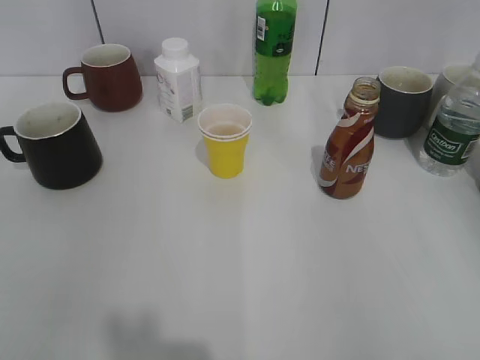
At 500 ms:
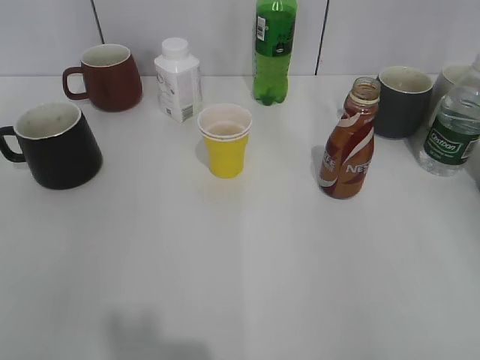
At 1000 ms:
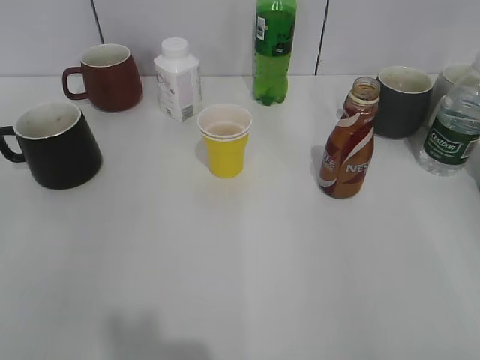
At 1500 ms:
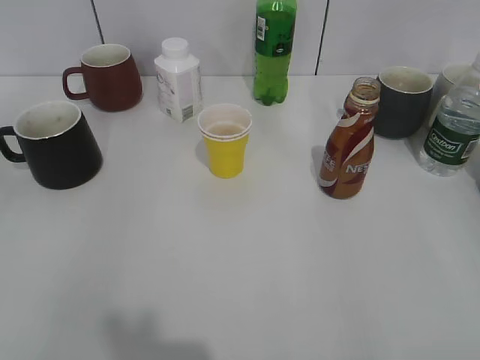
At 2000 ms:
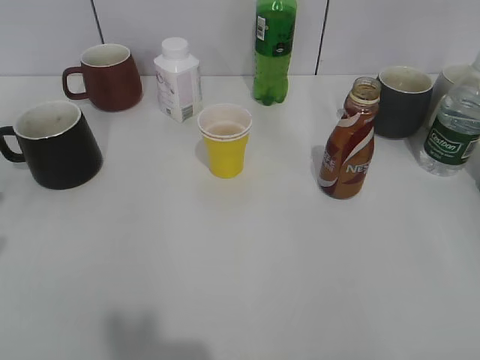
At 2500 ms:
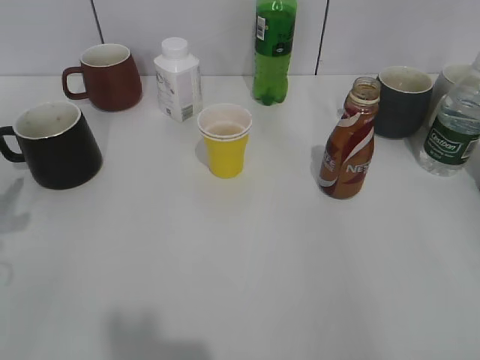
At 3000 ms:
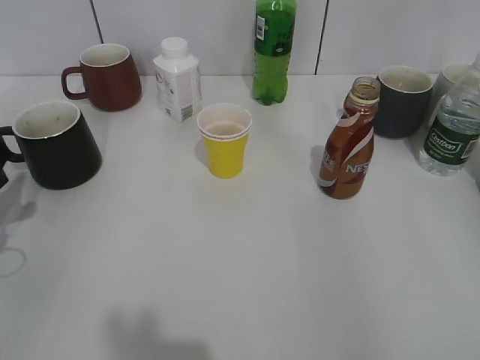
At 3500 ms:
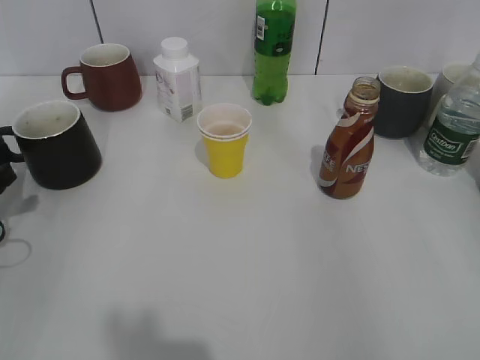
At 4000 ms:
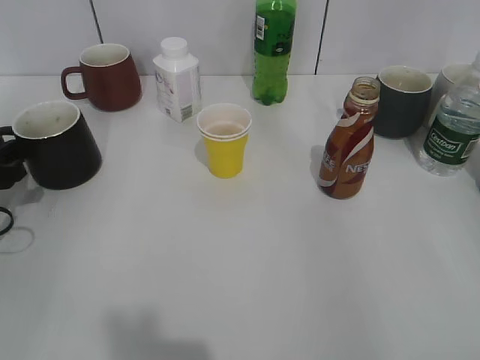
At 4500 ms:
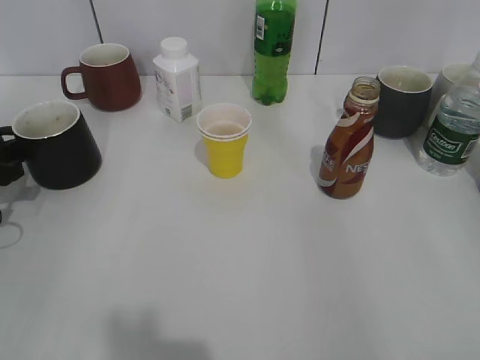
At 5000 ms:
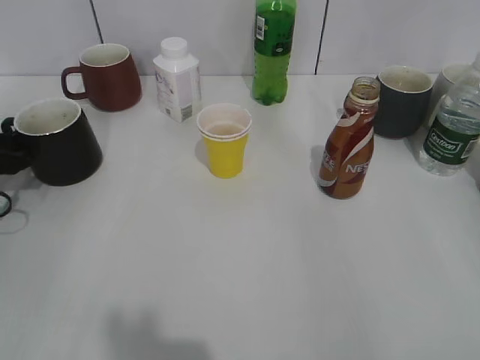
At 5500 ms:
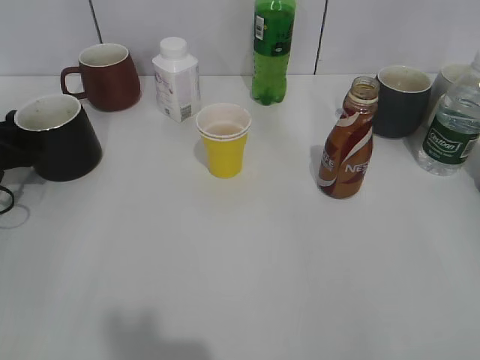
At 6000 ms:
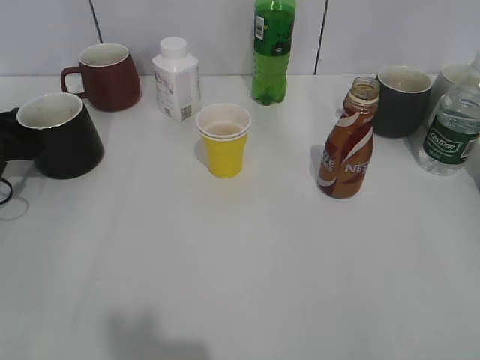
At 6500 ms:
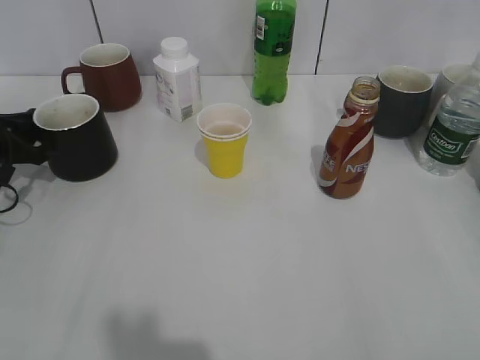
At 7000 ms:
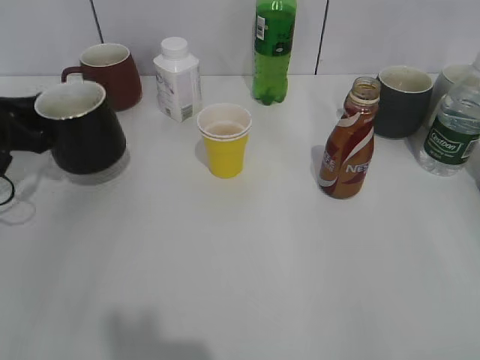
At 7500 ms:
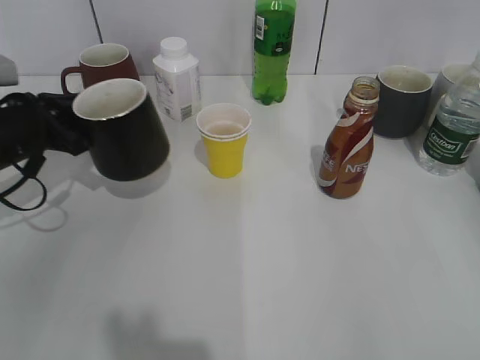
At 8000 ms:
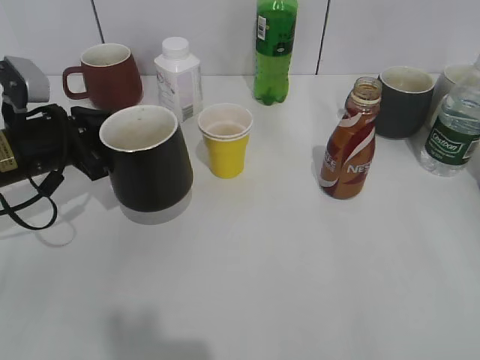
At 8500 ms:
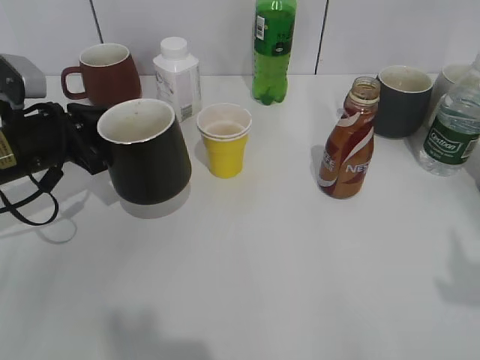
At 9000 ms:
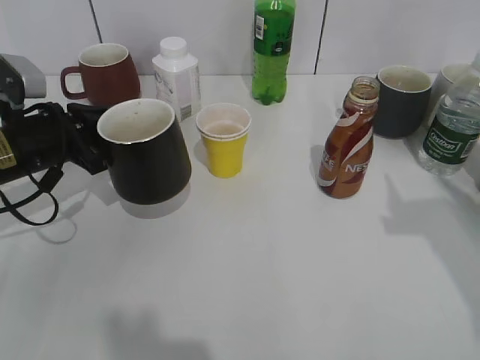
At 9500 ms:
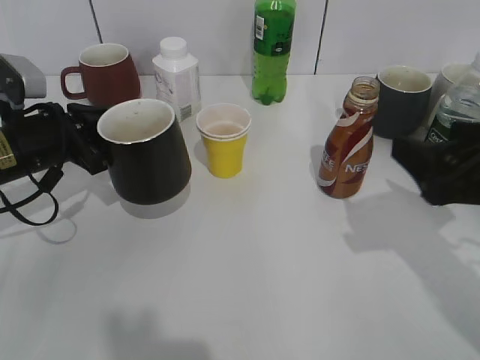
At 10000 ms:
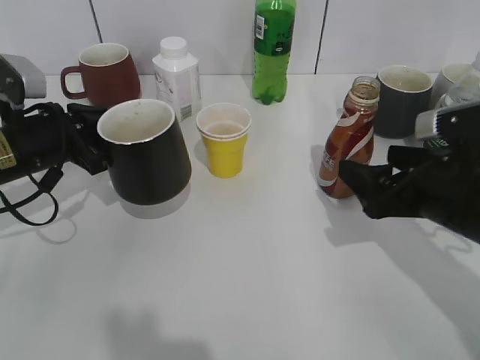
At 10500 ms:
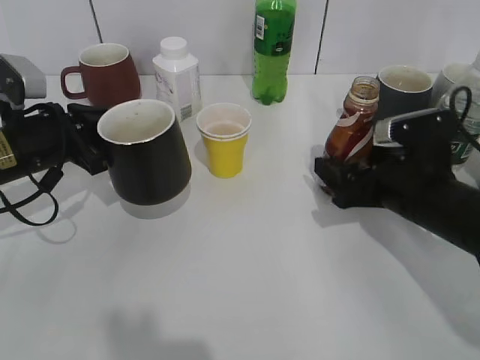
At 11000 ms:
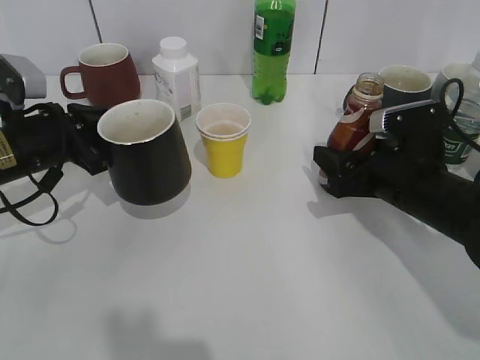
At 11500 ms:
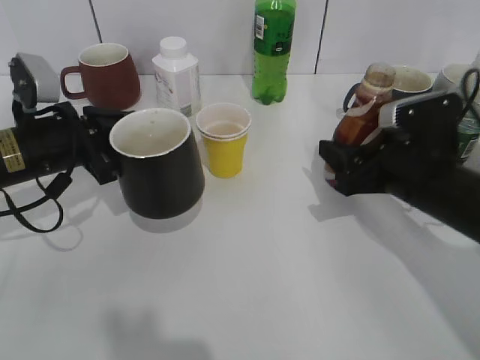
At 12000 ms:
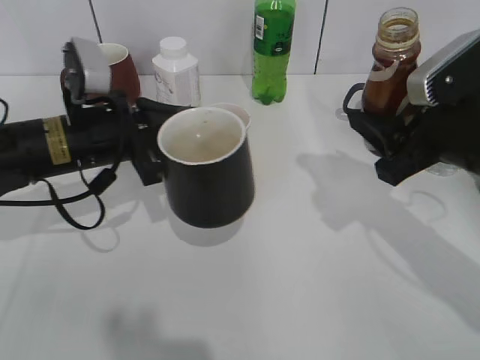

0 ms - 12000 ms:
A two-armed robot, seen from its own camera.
Step, 1000 ms - 6000 ms: Grasp the black cup with left gripper.
Step, 6500 ms - 7500 ms: Lift the black cup with left gripper.
Step, 8000 ms - 11000 ms: Grasp the bottle with coffee with right gripper.
2000 ms - 4000 ms: The left gripper shifts some 20 cm downward and forward.
4000 ms - 6000 ms: The left gripper goes roughly 5 cm forward, and closes up.
6000 ms - 8000 ms: The left gripper shifts about 10 cm to the right, and closes.
8000 ms - 10000 ms: The right gripper moves forward, downward and to the left, some 30 cm, and opens up.
10000 ms - 12000 ms: The left gripper heads to the right, covering some 10 cm, while the right gripper moves upward, about 5 cm, and closes.

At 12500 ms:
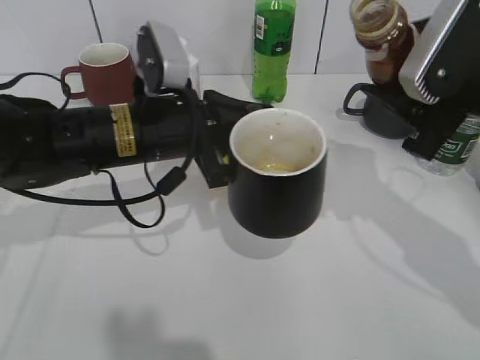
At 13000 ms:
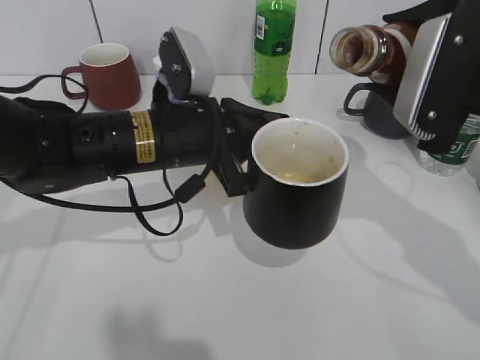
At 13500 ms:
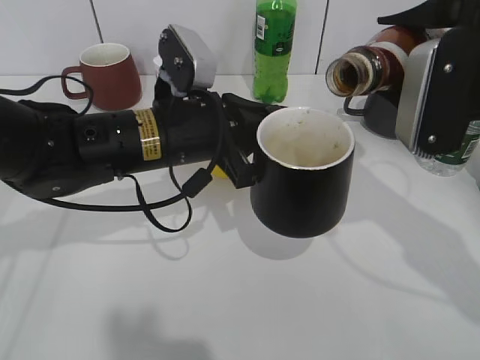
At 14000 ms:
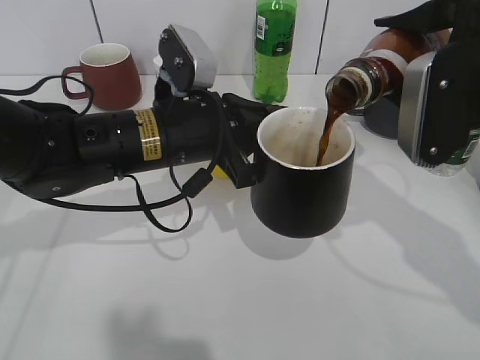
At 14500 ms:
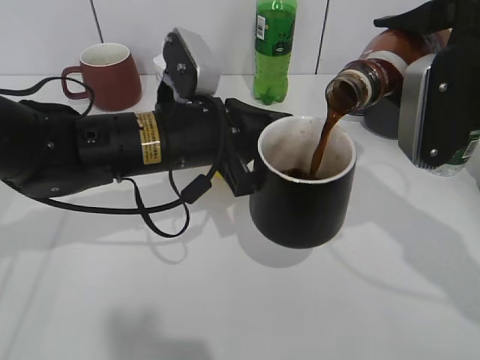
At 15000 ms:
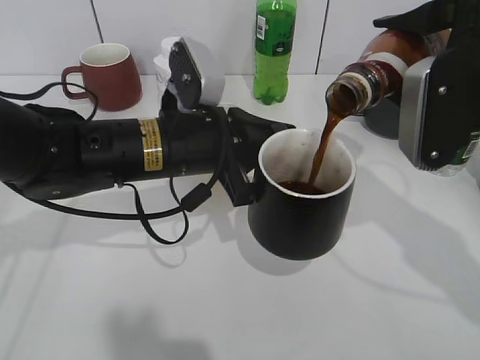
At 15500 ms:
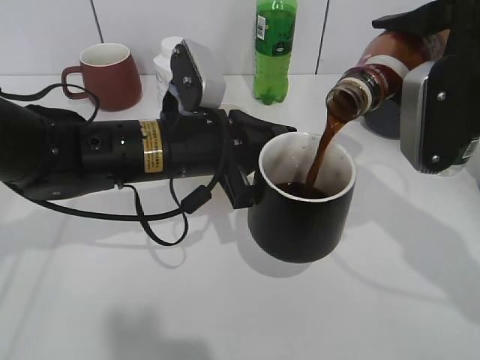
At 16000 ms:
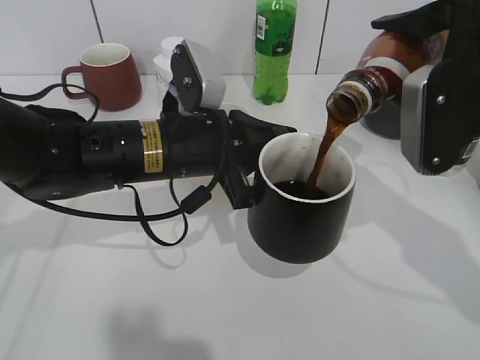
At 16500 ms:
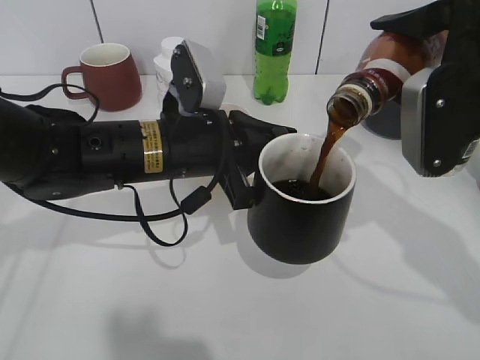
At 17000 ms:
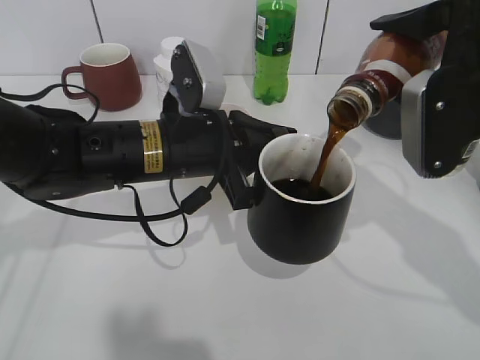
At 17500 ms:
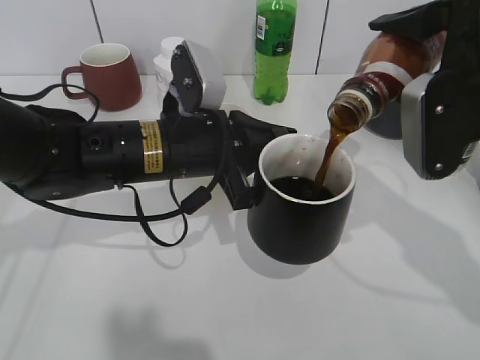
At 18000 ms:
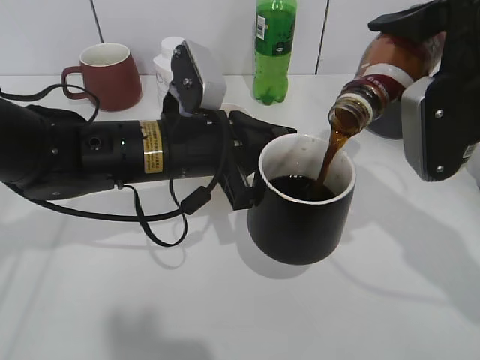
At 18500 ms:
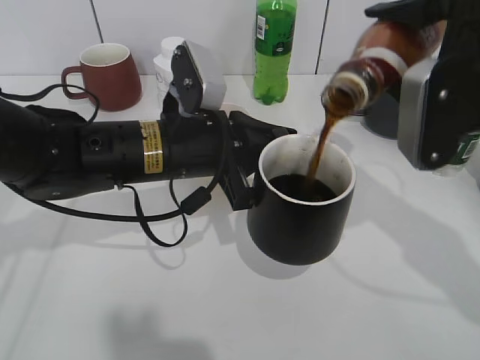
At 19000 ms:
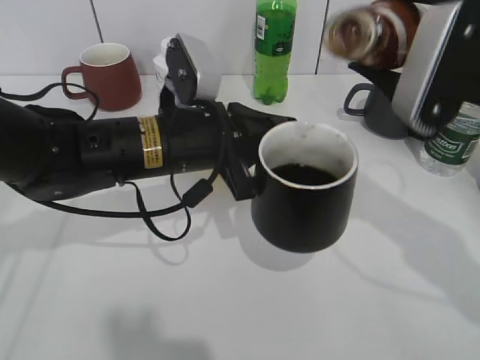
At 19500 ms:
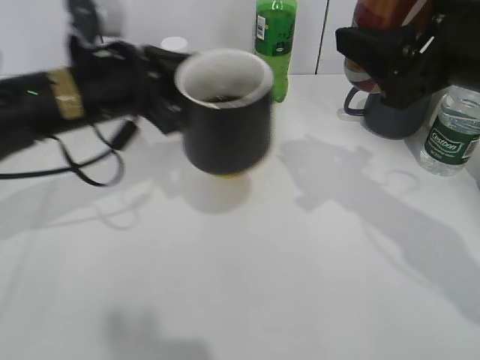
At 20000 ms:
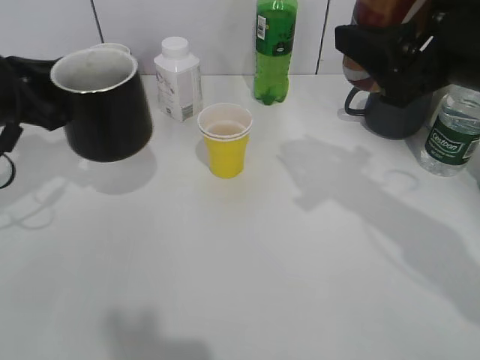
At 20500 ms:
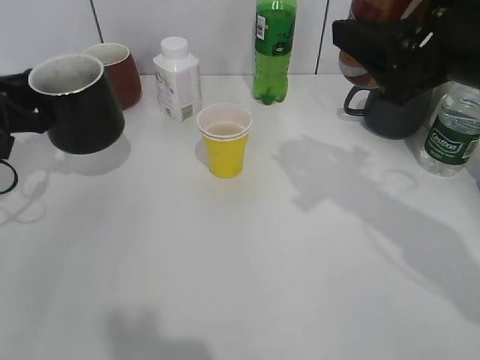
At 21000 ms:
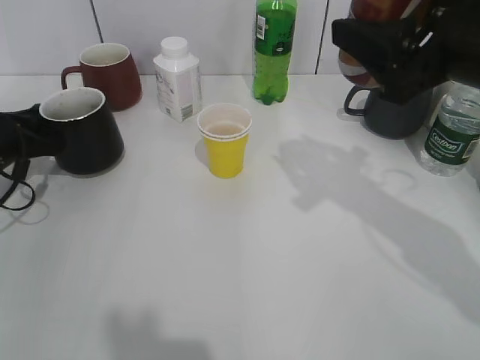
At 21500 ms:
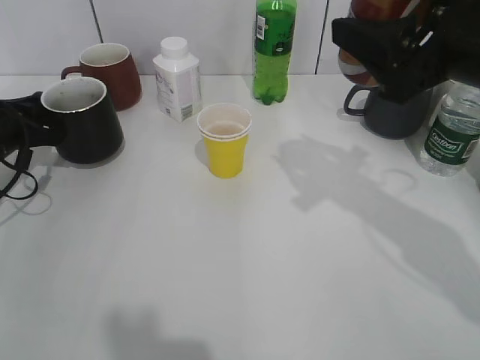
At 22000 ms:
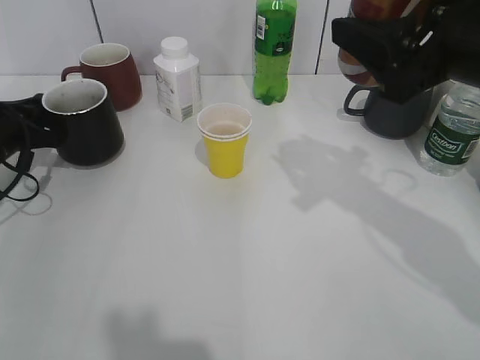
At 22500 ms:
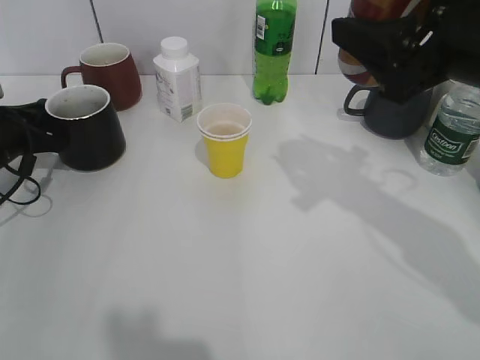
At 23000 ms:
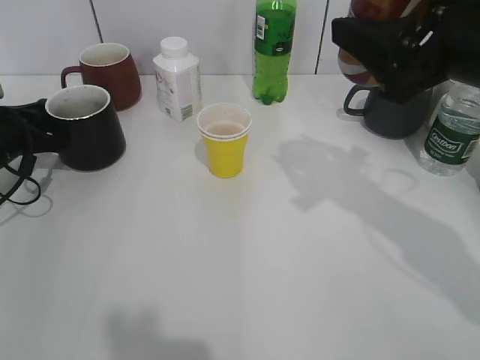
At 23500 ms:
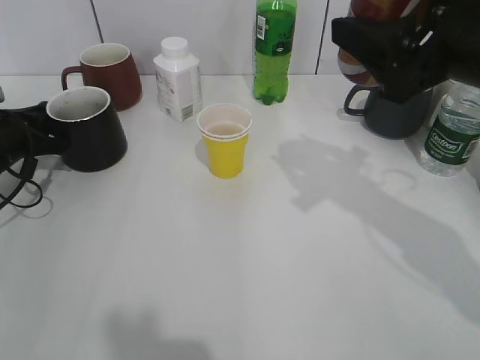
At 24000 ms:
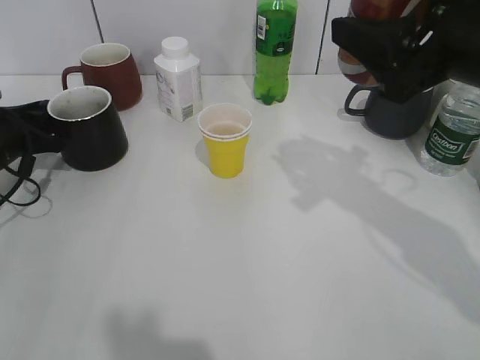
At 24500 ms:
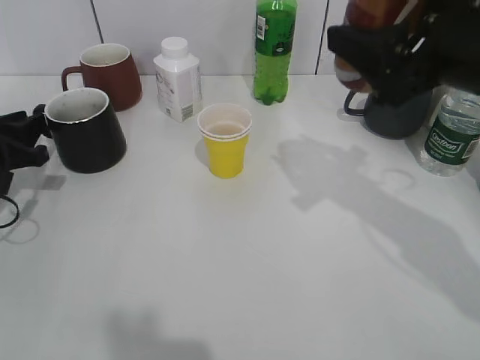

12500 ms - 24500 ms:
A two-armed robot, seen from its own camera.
Step, 12500 ms - 18500 ms: Pour the coffee from bottle to cup with right gripper.
Step, 19000 ms - 24500 ms: Place the black cup on the table with left gripper.
14500 ms - 18500 ms: There are only small adjustments of the grippers.
18500 ms - 20500 ms: The left gripper heads to the left, covering some 25 cm.
20500 ms - 22500 ms: The left gripper travels downward by roughly 5 cm.
22500 ms - 24500 ms: The left gripper heads backward, covering about 5 cm, and opens up.

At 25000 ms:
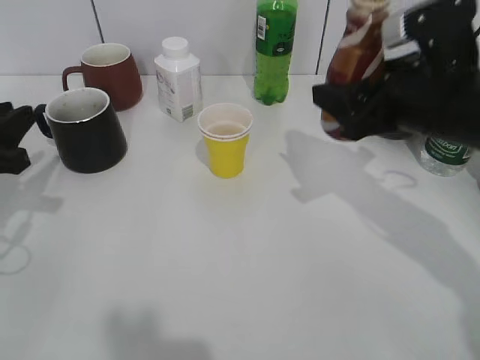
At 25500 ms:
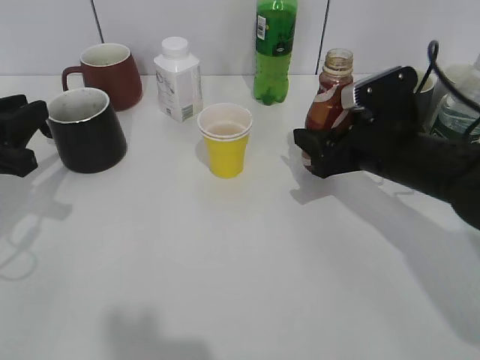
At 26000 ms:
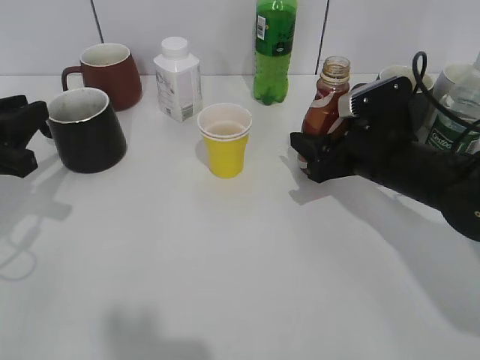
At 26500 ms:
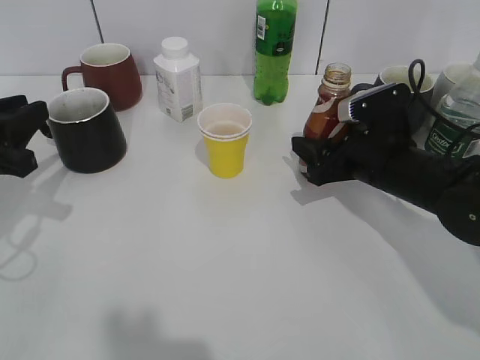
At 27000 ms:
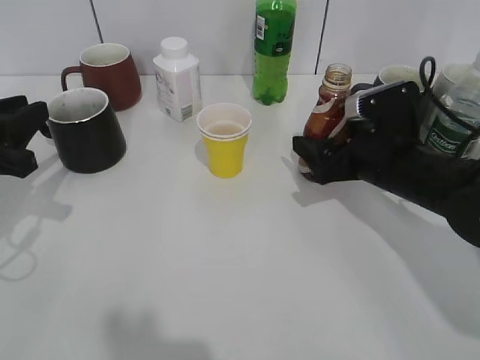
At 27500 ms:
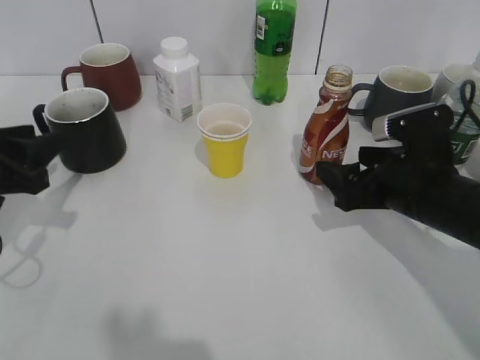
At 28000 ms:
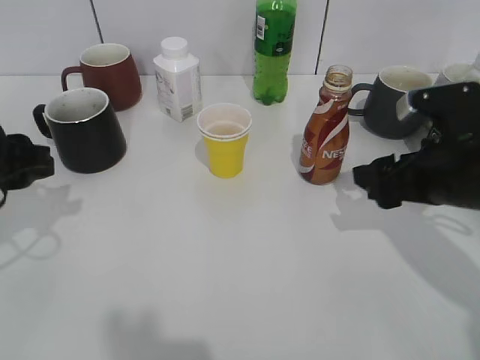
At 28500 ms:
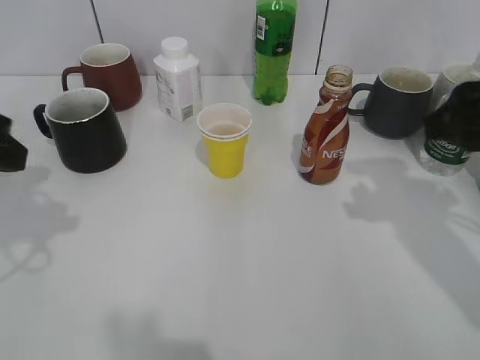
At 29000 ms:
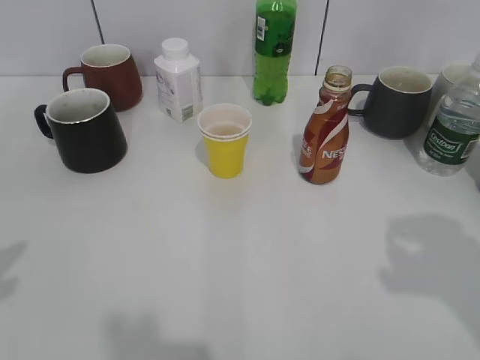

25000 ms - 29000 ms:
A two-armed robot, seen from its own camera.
Step, 25000 ms - 27000 ms: Place the coffee bottle on the table with right gripper.
25000 ms - 27000 ms: The right gripper heads downward, covering approximately 10 cm, and opens up.
27000 ms - 29000 ms: The right gripper moves upward, backward and to the right, roughly 30 cm. Meanwhile the left gripper heads backward and upward, covering approximately 20 cm.
